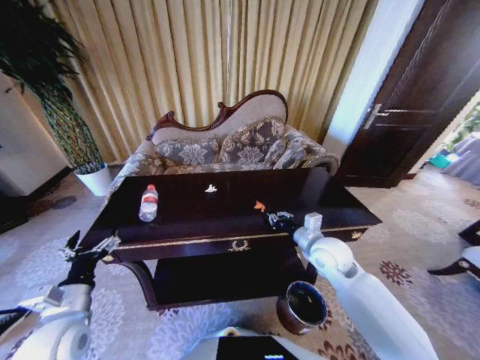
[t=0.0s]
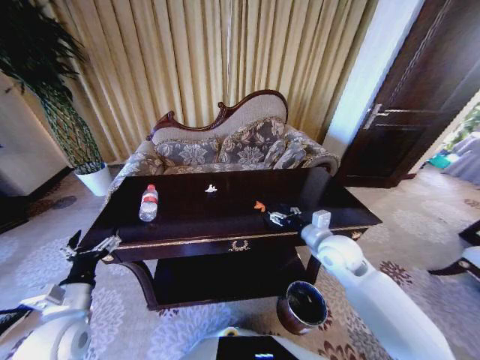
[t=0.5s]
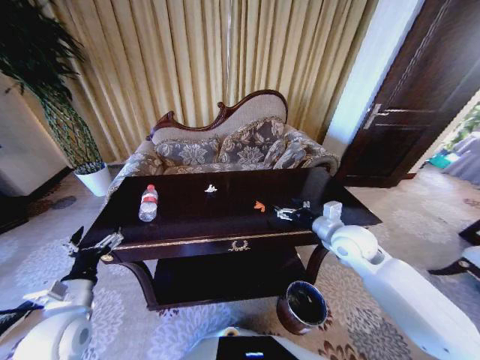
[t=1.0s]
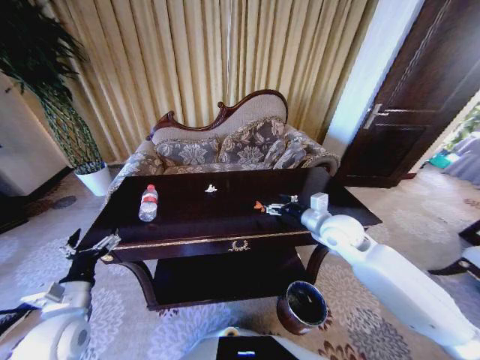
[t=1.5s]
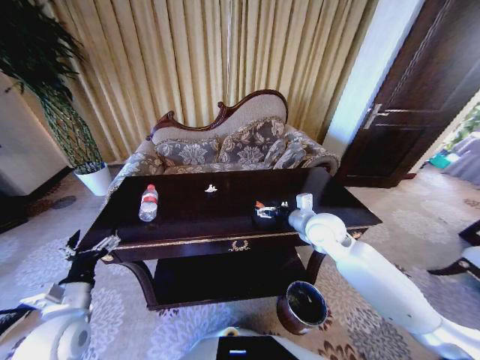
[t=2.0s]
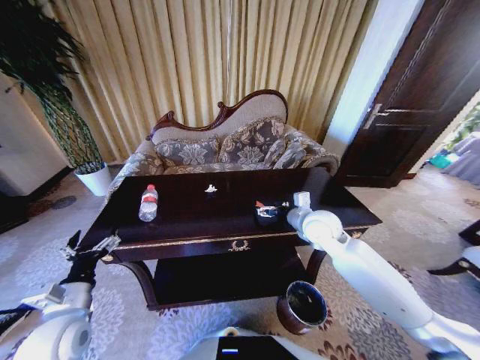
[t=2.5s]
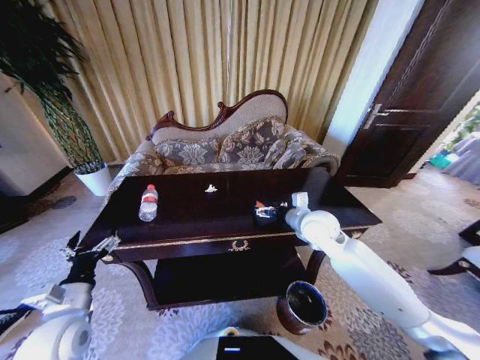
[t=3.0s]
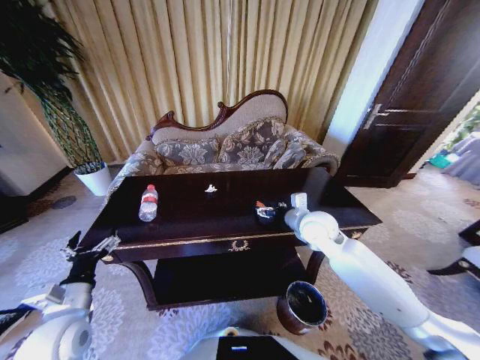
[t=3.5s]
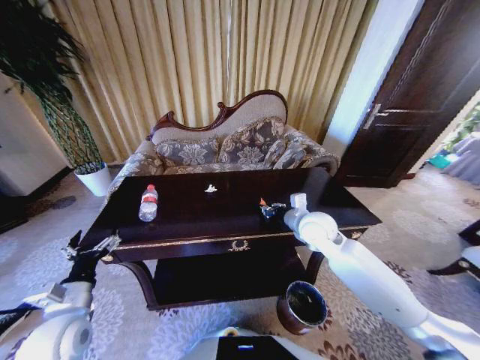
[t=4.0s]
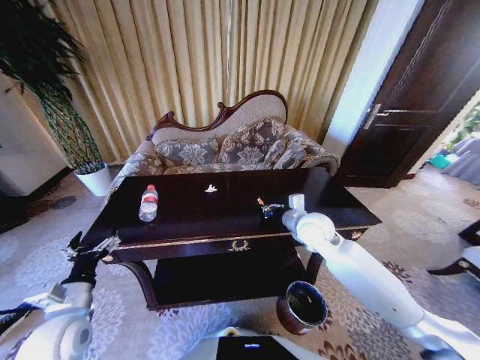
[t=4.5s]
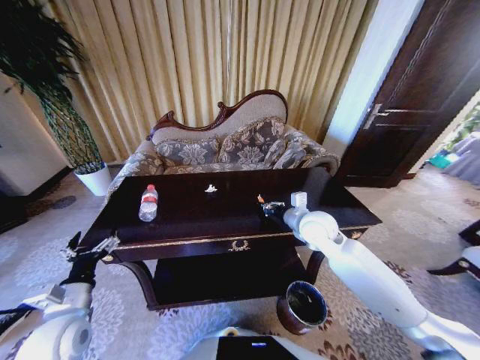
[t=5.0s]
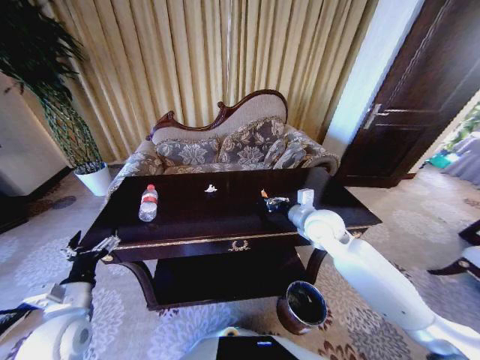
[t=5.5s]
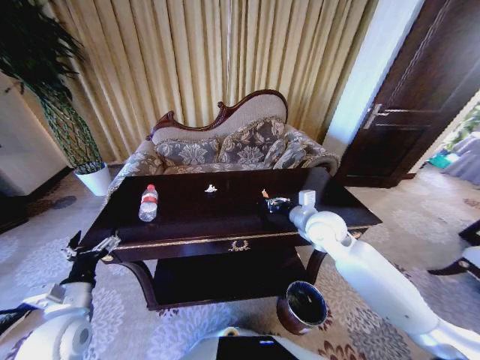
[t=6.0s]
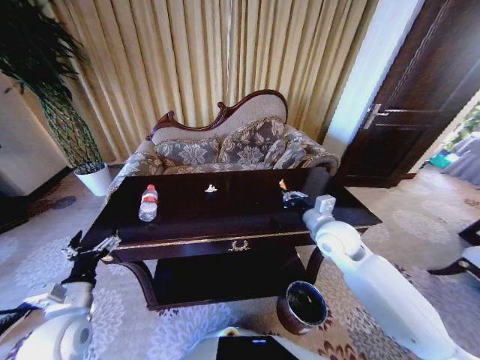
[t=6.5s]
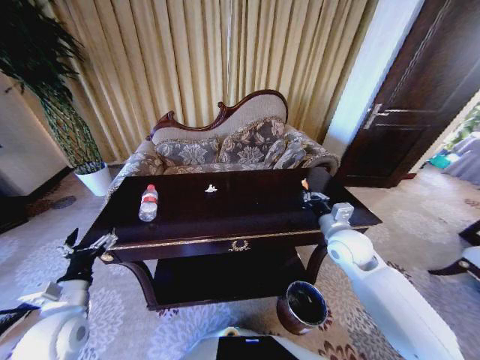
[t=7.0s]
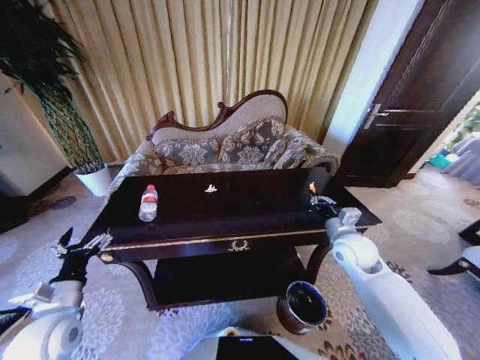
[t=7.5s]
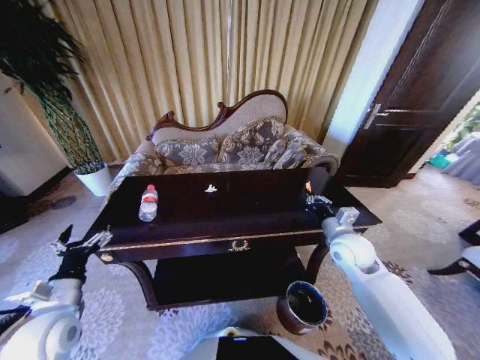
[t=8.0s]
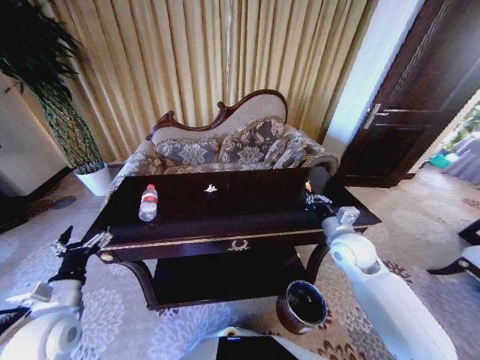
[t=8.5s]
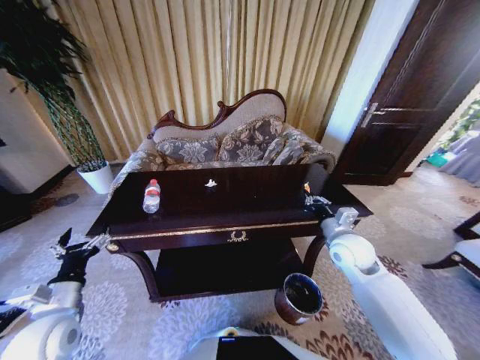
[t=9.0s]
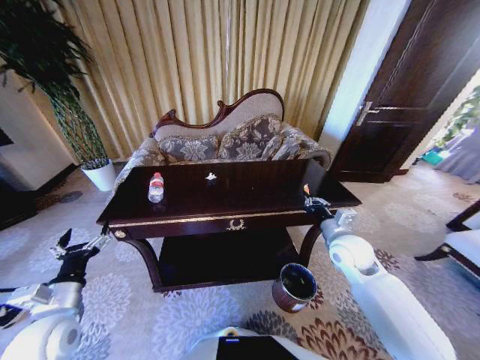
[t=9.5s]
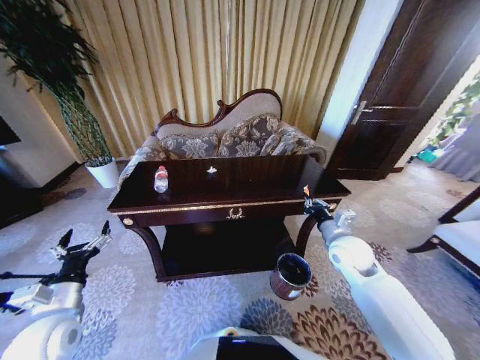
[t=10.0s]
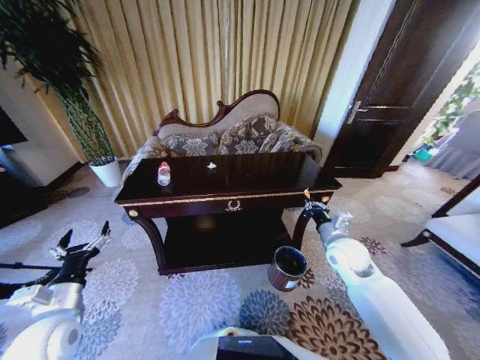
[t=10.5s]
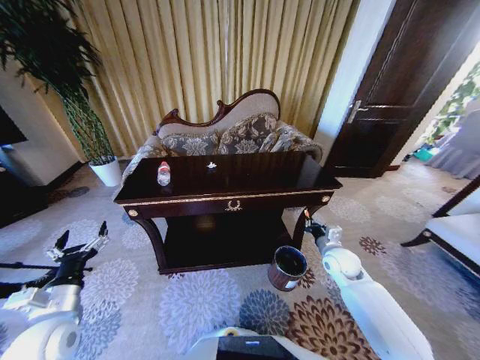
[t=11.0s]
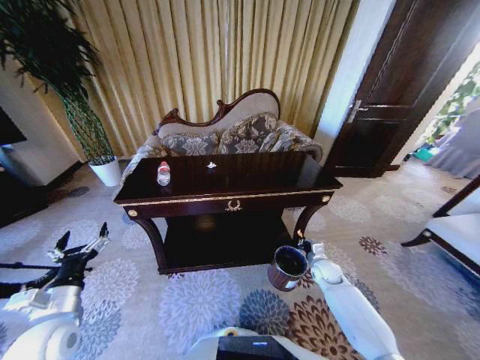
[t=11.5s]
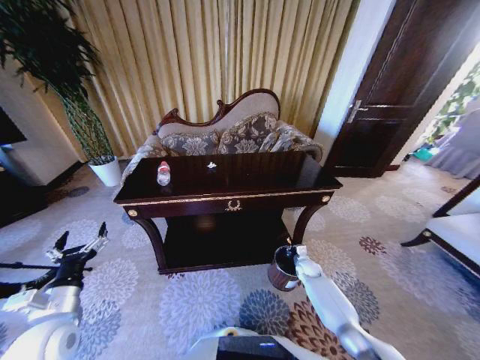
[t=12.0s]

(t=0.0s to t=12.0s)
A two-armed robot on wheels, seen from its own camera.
Task of the whole recording: Move to the front of the table and place the trash on the table into the trash bin.
t=0.0s - t=2.0s: The right gripper heads forward, covering some 5 cm, and opens.
t=2.0s - t=4.0s: The right gripper closes.
t=4.0s - t=6.0s: There are only small adjustments of the grippers.
t=6.0s - t=8.0s: The right gripper moves to the right, roughly 5 cm.
t=10.0s - t=12.0s: The right gripper moves downward, some 30 cm.

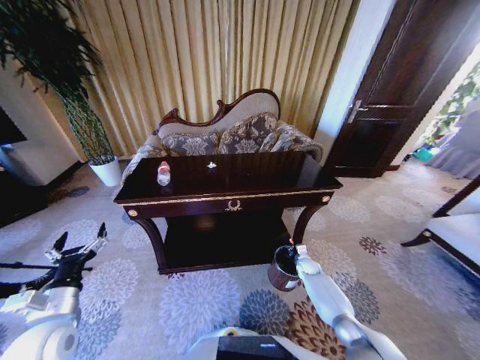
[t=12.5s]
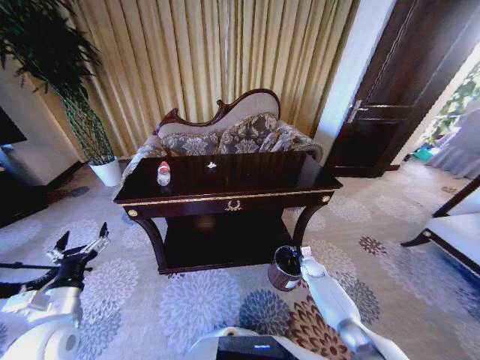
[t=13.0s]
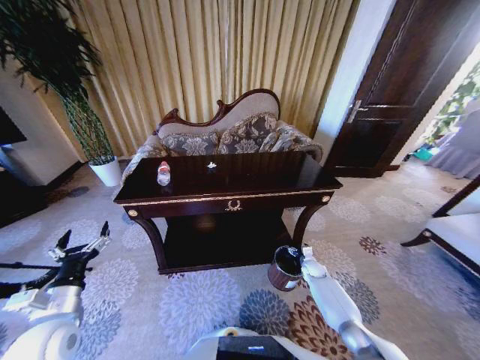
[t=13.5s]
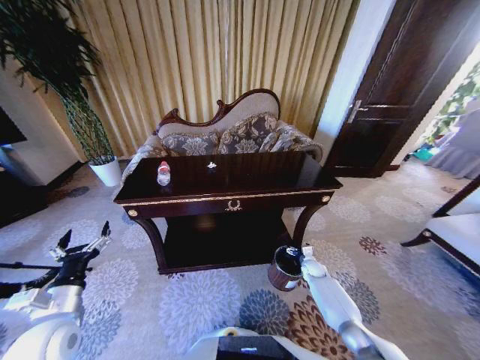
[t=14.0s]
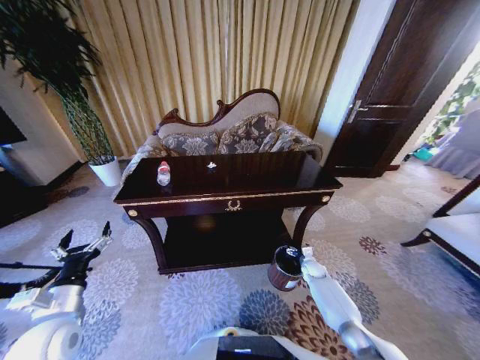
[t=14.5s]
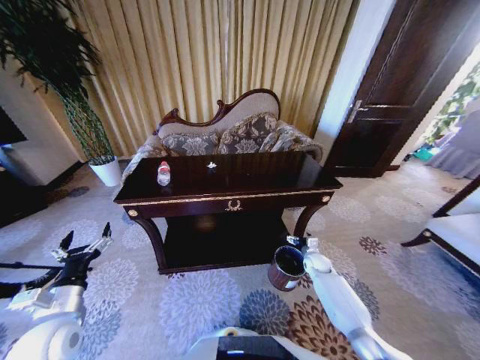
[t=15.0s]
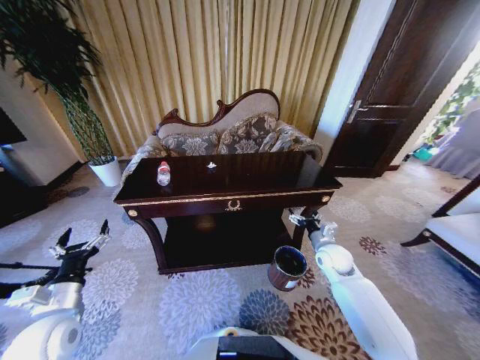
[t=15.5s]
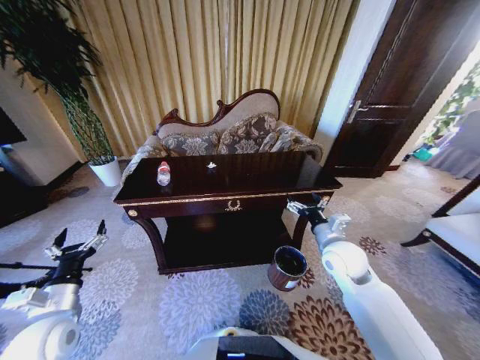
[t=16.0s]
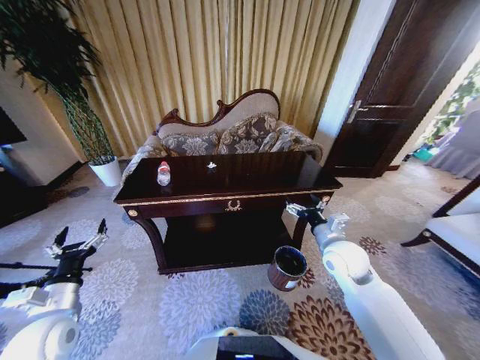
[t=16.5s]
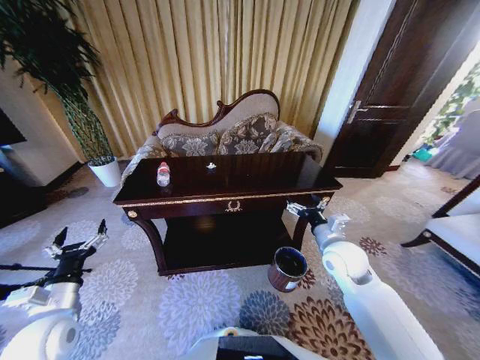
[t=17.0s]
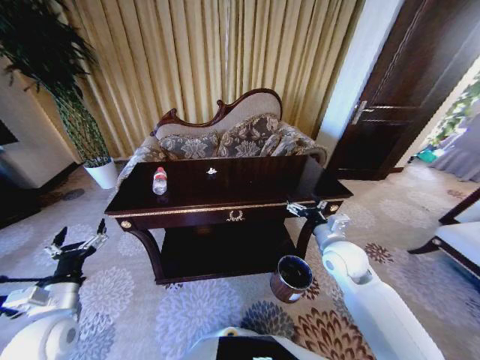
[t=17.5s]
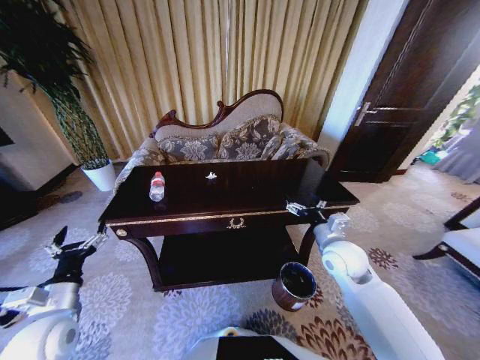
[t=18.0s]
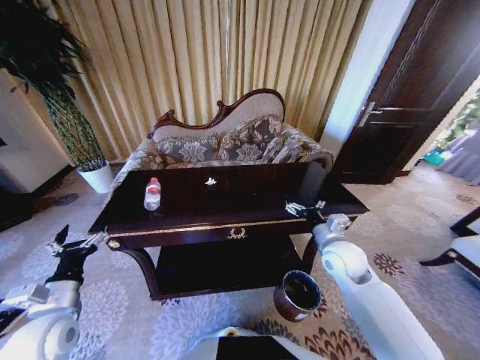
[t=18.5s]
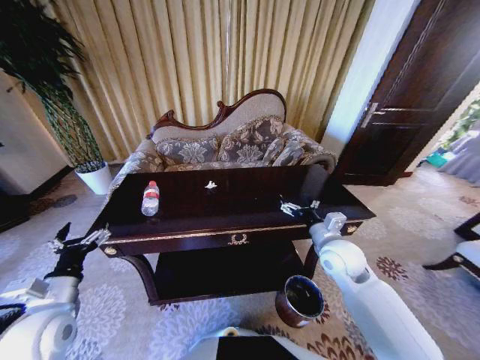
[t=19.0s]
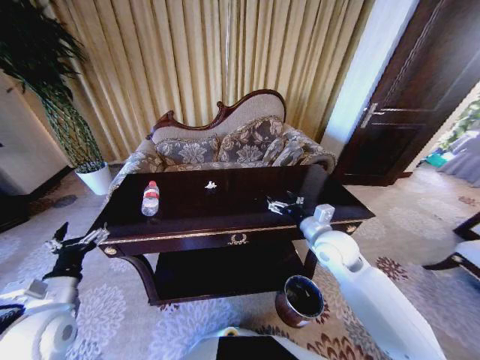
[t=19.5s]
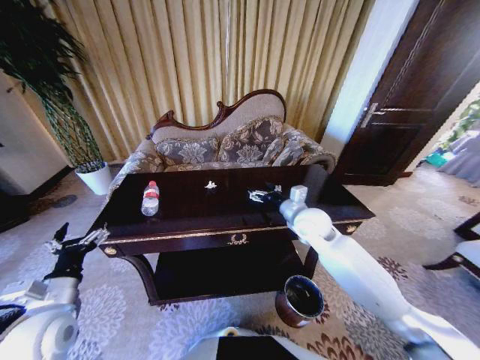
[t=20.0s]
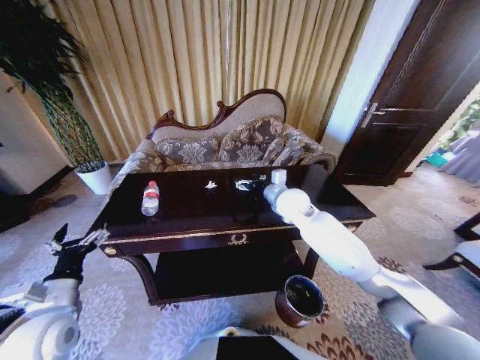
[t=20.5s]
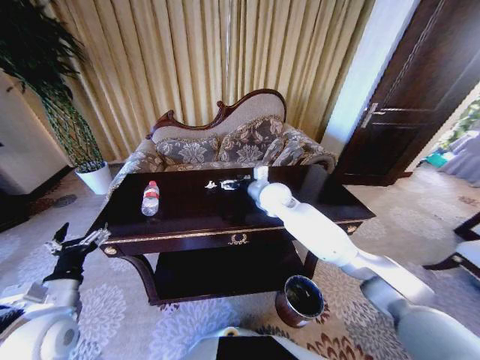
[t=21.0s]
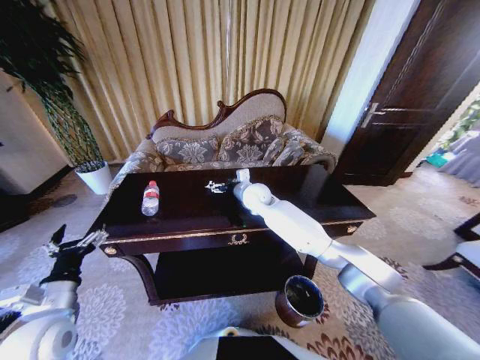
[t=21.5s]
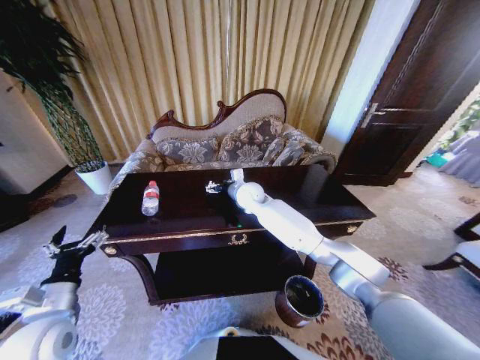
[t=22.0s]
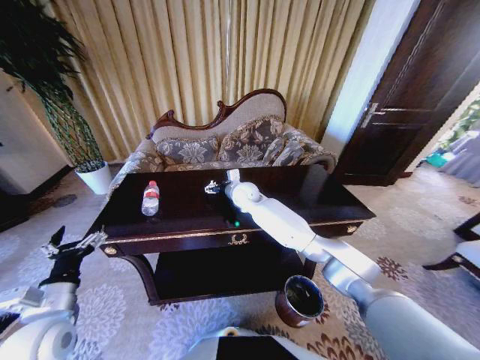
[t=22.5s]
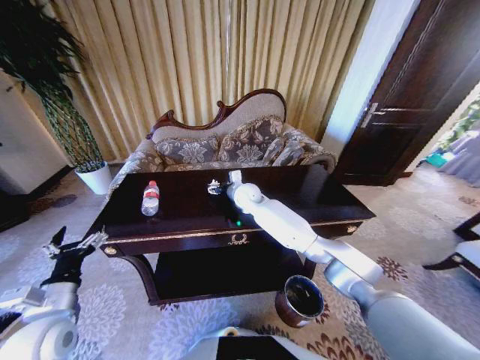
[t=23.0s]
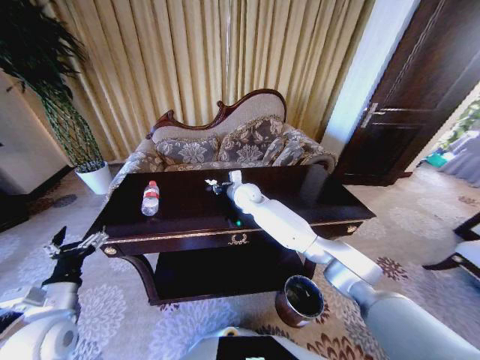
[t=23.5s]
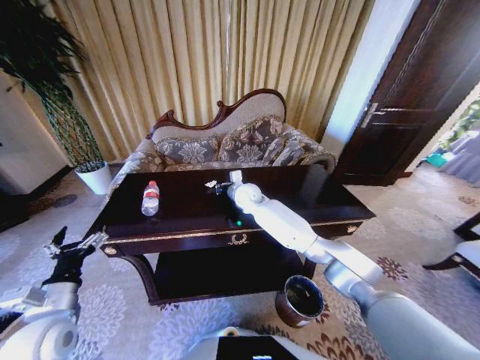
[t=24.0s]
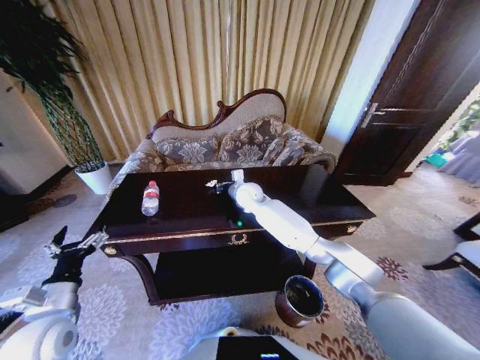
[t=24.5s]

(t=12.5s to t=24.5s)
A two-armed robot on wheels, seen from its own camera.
Task of the whole recording: Move to the front of the table and place the trash on the table into the trash bin.
t=12.5s - t=14.5s: The right gripper opens.
t=14.5s - t=16.5s: The right gripper is displaced upward by about 30 cm.
t=18.5s - t=20.5s: The right gripper heads forward and to the left, covering roughly 20 cm.
t=20.5s - t=22.5s: The right gripper goes about 15 cm to the left and forward.
t=22.5s - t=24.5s: The right gripper closes up.

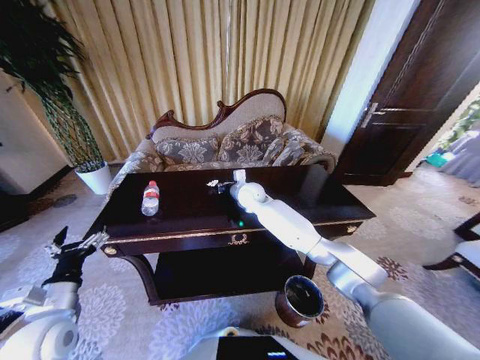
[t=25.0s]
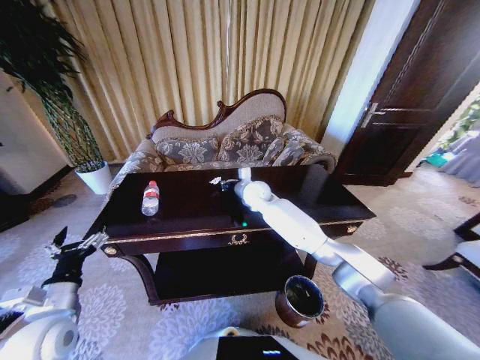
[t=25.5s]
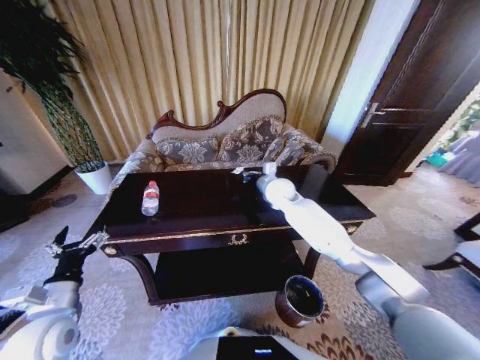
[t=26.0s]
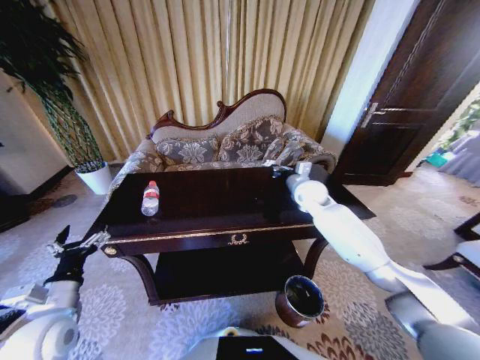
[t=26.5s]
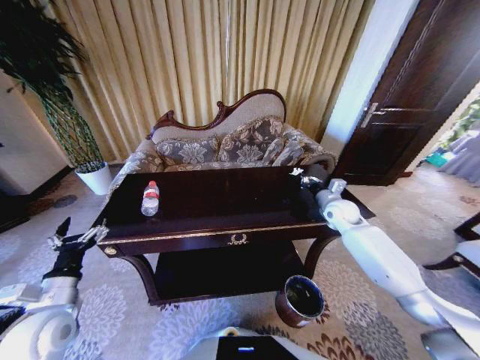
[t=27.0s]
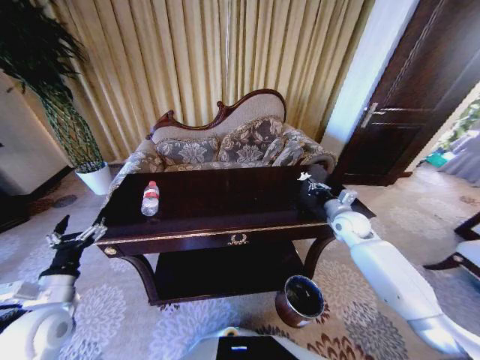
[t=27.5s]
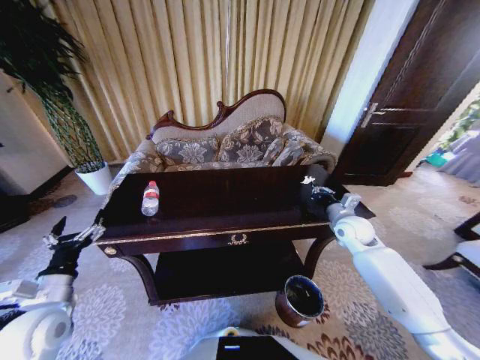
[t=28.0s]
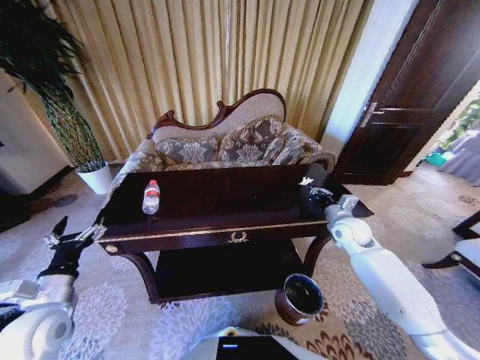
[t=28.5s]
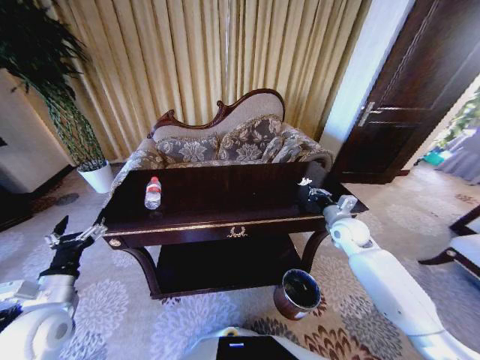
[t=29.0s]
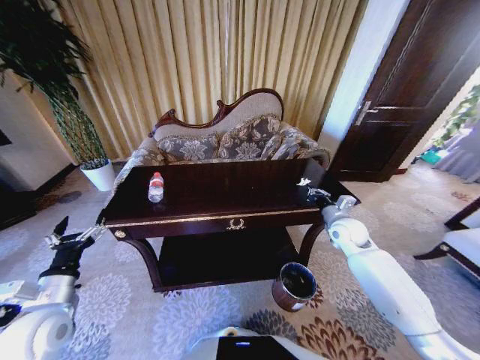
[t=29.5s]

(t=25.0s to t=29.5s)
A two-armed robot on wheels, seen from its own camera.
Task of the whole recording: Move to the front of the table and place the trash on the table into the trash bin.
t=25.0s - t=27.0s: The right gripper is displaced to the right by roughly 30 cm.
t=27.0s - t=29.5s: The right gripper travels backward by about 5 cm.
